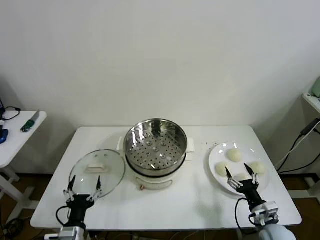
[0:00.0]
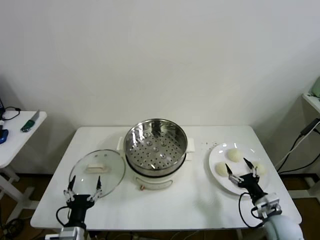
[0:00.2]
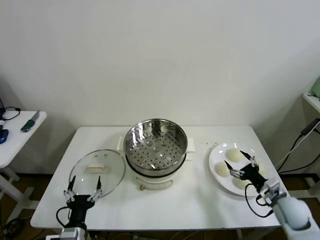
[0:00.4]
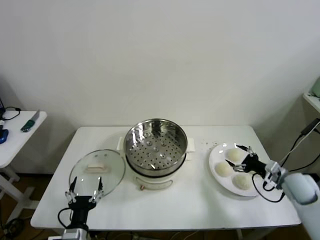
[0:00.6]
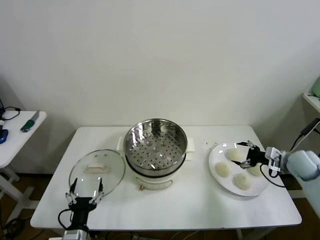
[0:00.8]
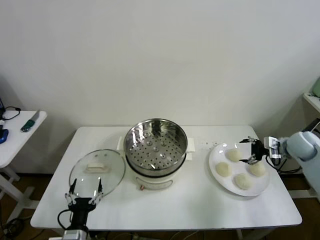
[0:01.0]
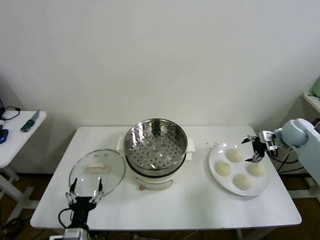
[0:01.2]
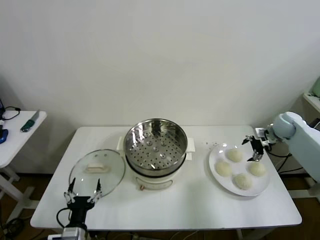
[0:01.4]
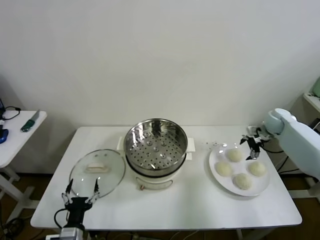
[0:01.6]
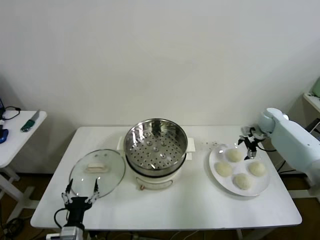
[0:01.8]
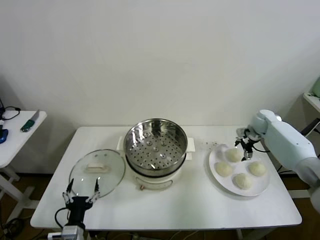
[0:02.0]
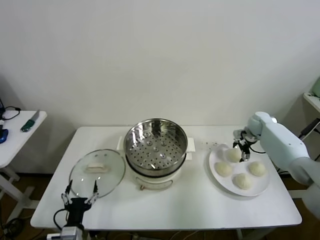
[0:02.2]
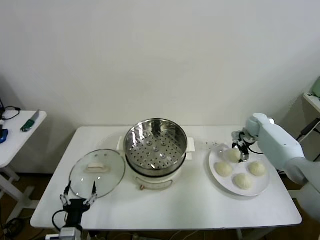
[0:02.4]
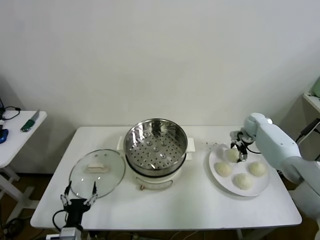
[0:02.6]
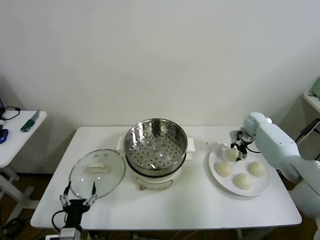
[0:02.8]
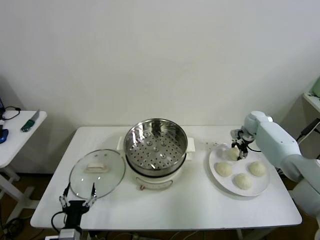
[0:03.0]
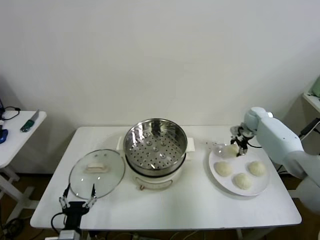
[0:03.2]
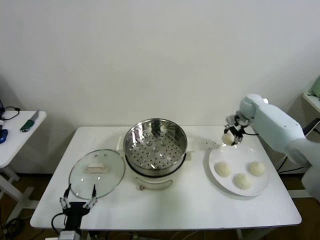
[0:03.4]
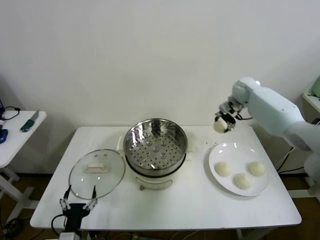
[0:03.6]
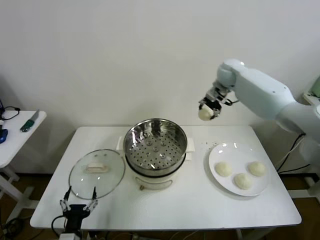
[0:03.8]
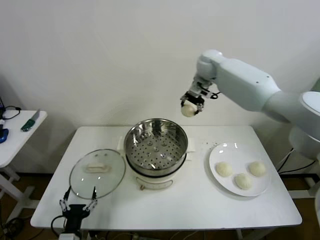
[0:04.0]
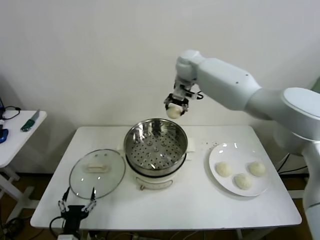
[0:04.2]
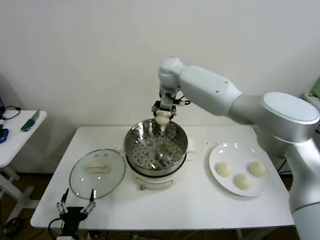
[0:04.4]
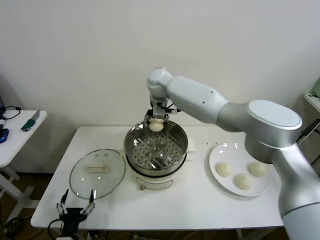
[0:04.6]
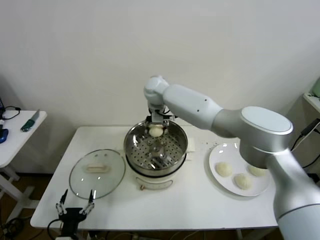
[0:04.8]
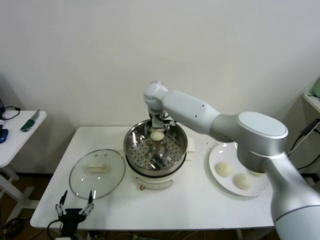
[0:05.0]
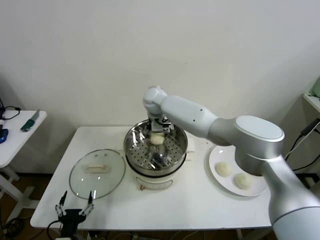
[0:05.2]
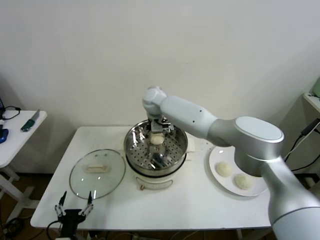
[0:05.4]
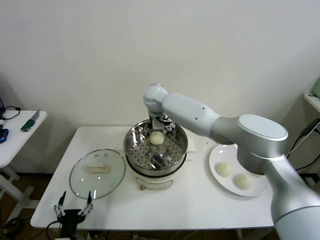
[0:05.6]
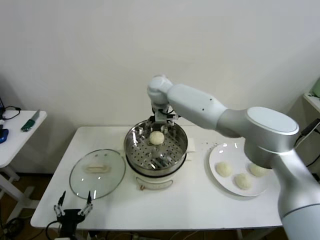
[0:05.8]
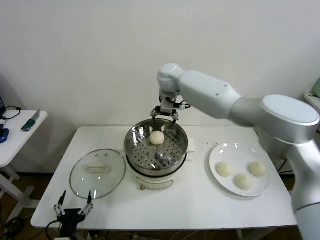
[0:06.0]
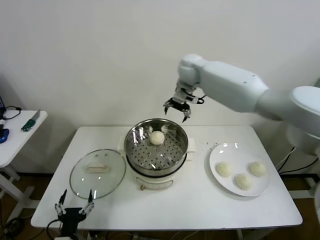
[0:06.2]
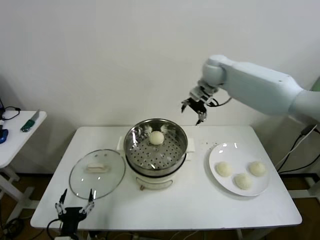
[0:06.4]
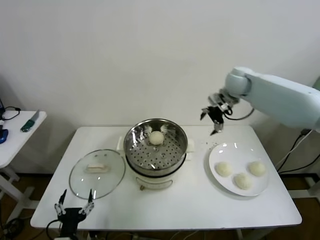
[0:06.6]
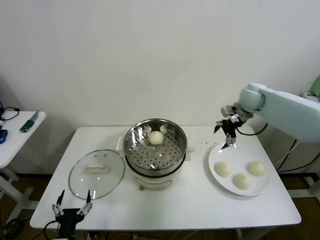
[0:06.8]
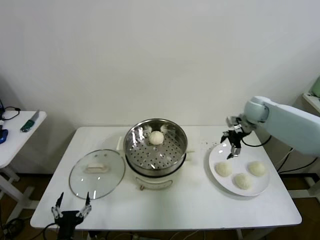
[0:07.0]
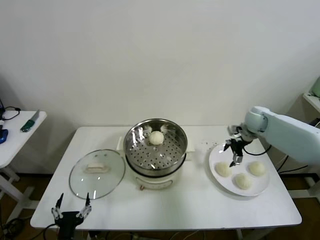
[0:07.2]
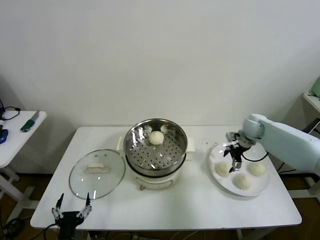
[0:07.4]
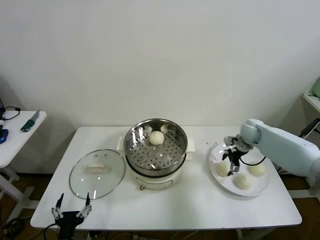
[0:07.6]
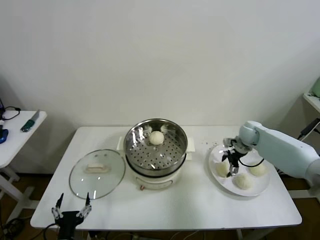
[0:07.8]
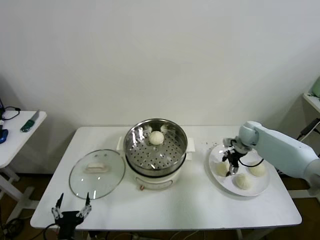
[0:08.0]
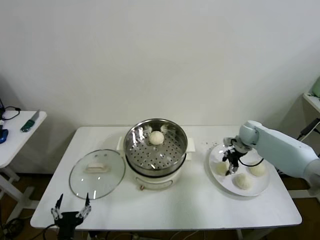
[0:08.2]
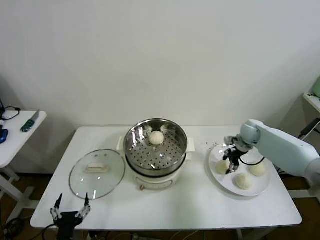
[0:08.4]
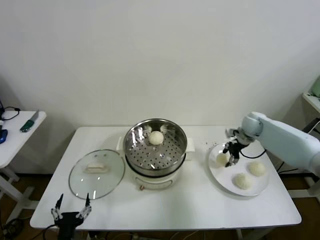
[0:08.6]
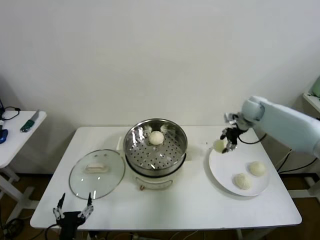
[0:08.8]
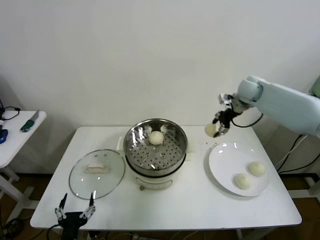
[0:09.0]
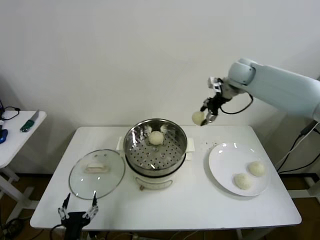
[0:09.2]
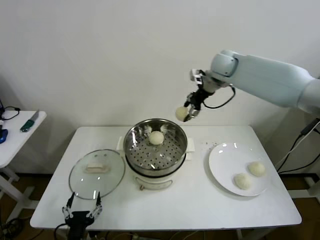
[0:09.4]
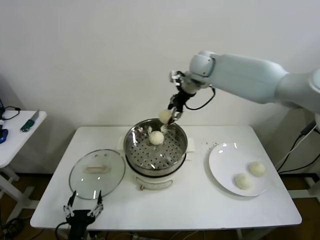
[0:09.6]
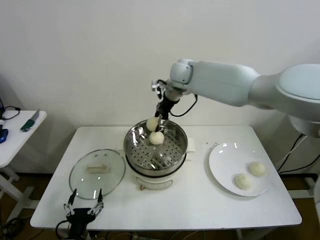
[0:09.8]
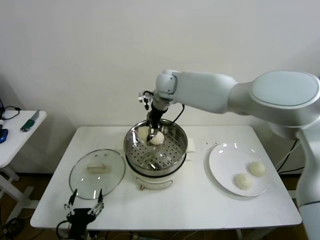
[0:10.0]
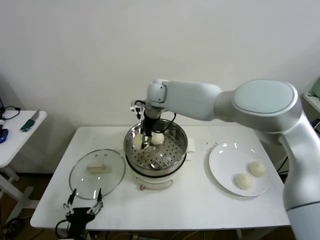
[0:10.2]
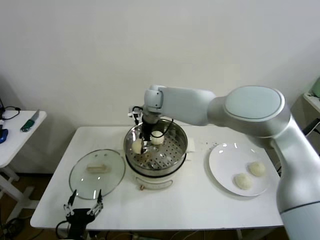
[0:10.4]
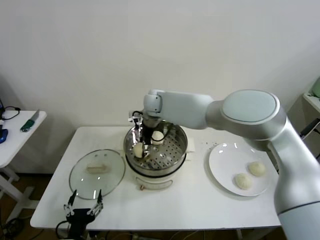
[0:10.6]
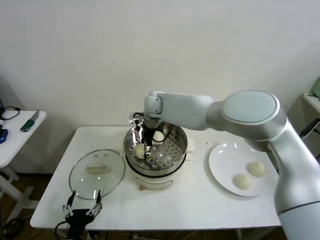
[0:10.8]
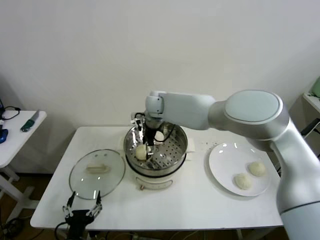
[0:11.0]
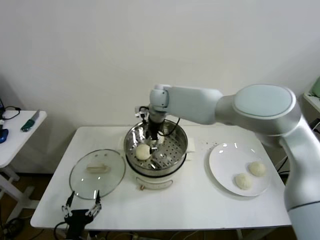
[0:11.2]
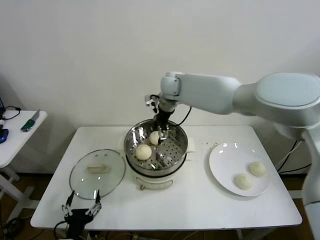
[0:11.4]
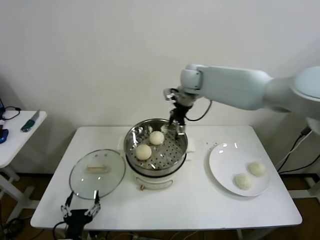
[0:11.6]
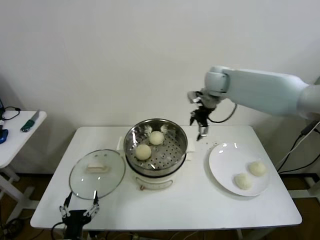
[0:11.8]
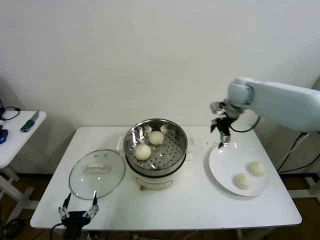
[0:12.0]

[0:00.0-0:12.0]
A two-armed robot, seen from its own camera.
Step, 0.0 to 2.6 s: Grasp the baozi in the plate with right gripper.
Step, 2.8 to 5.2 s: Place the baozi on the steamer with right gripper.
Step, 5.4 to 8.0 s: Grasp the baozi in the plate with right gripper.
Step, 8.2 to 10.8 s: Place the baozi on the steamer with right gripper.
1.6 to 3.0 s: The right gripper moves downward, some 5 cm, and closes its fingers.
3.0 to 4.4 s: The right gripper goes about 40 cm to the left and upward.
4.4 to 6.0 s: The right gripper travels downward and back again, roughly 10 cm each way, and opens.
6.0 to 7.6 s: The right gripper goes some 40 cm to the right and downward.
7.6 to 9.0 s: The right gripper travels upward by some 15 cm, and closes its fingers.
9.0 to 10.4 s: The right gripper is displaced to the left by some 35 cm.
10.4 to 12.0 s: The right gripper shifts roughly 30 cm to the right, and opens.

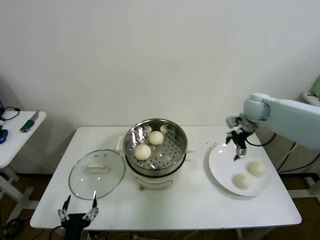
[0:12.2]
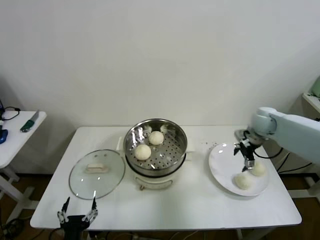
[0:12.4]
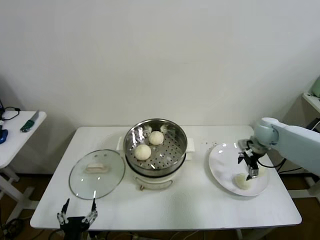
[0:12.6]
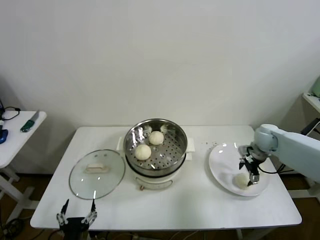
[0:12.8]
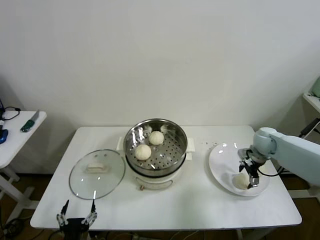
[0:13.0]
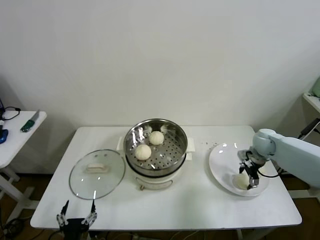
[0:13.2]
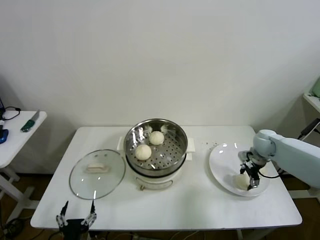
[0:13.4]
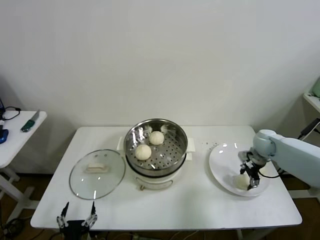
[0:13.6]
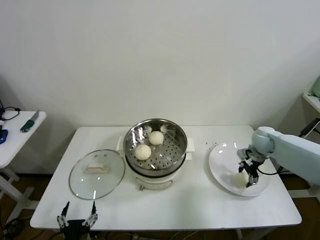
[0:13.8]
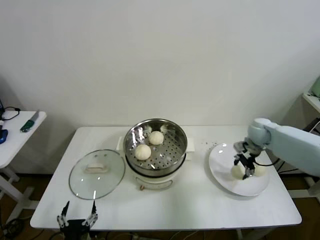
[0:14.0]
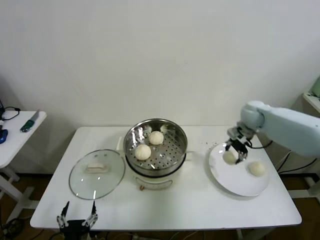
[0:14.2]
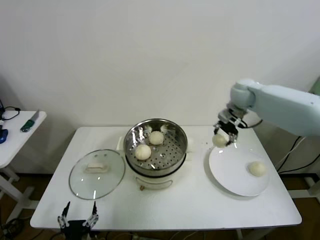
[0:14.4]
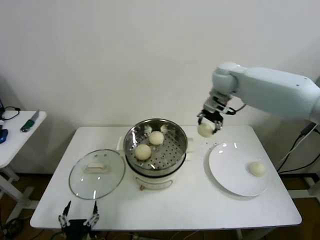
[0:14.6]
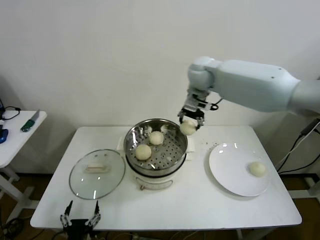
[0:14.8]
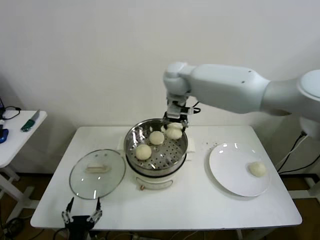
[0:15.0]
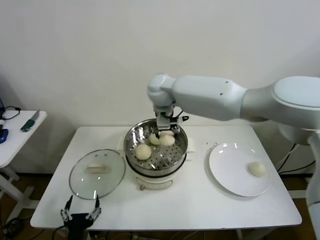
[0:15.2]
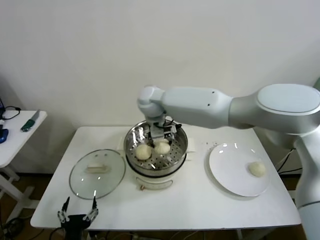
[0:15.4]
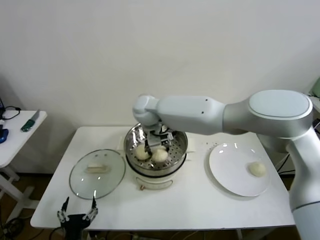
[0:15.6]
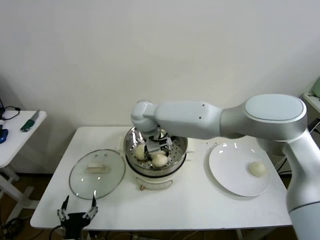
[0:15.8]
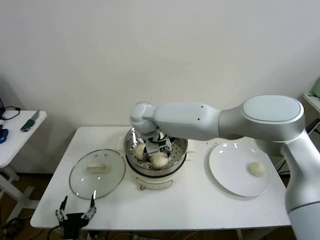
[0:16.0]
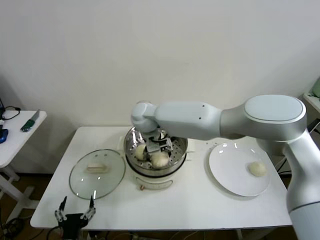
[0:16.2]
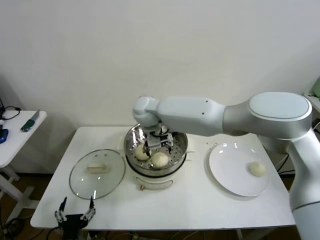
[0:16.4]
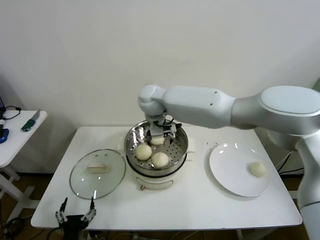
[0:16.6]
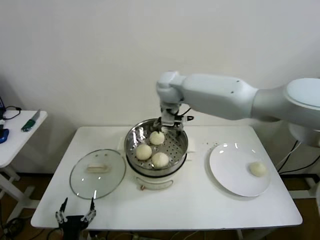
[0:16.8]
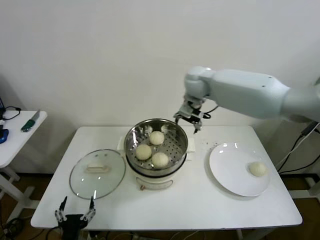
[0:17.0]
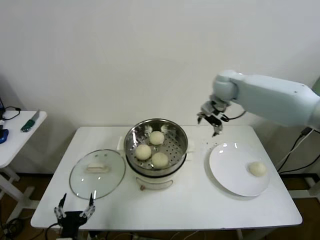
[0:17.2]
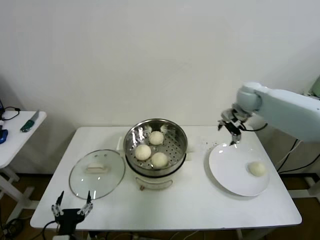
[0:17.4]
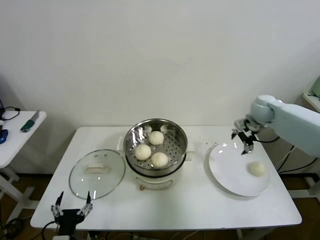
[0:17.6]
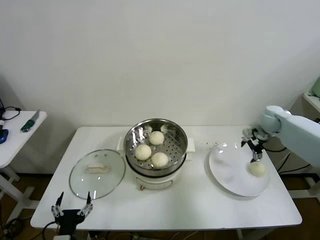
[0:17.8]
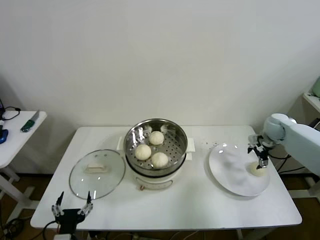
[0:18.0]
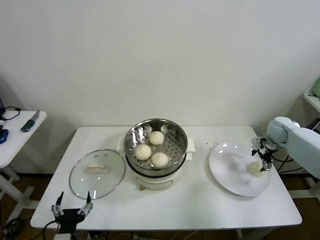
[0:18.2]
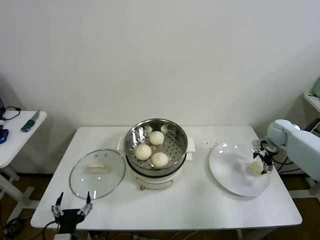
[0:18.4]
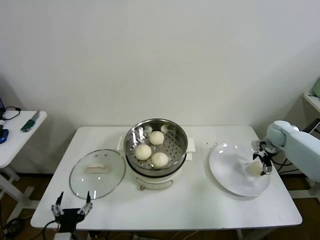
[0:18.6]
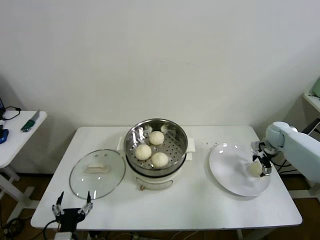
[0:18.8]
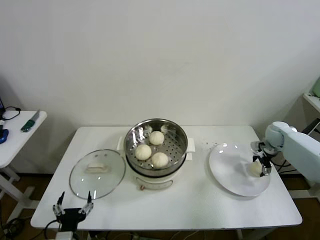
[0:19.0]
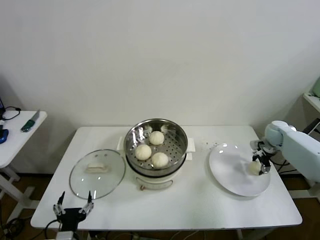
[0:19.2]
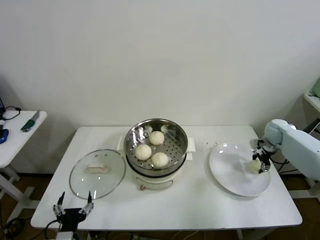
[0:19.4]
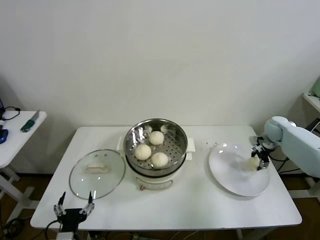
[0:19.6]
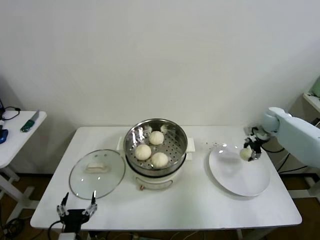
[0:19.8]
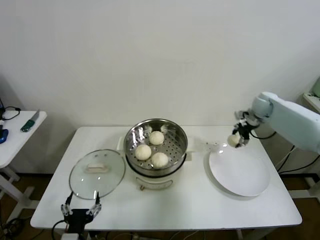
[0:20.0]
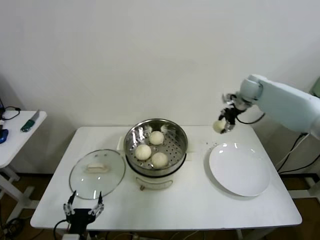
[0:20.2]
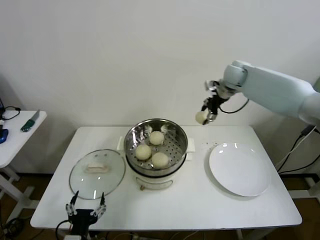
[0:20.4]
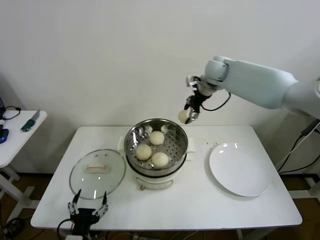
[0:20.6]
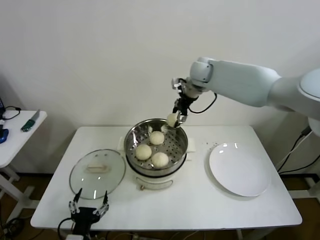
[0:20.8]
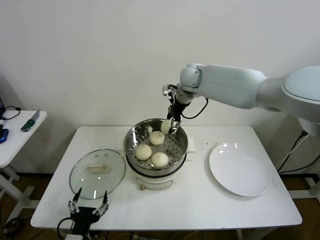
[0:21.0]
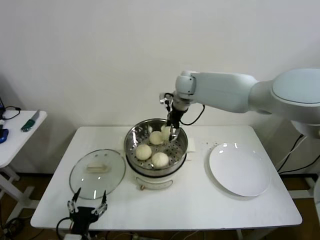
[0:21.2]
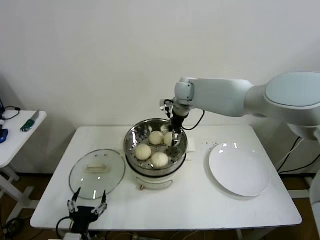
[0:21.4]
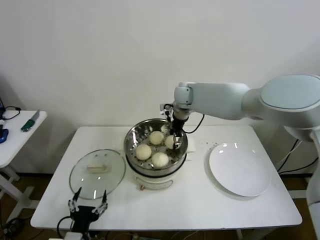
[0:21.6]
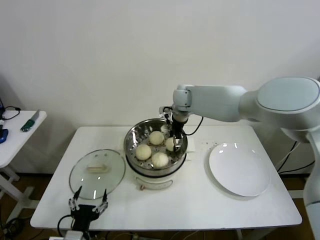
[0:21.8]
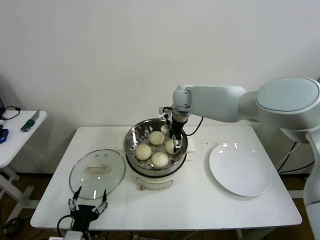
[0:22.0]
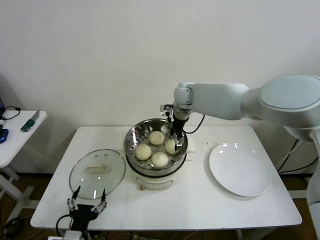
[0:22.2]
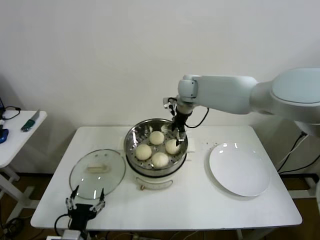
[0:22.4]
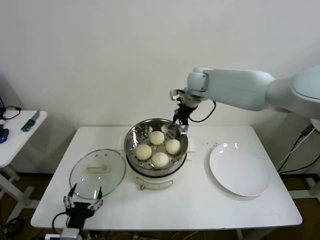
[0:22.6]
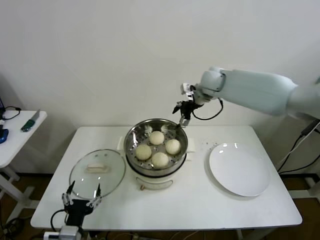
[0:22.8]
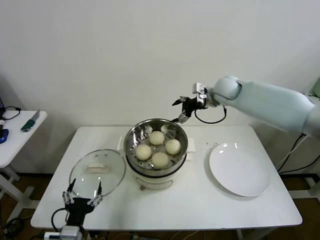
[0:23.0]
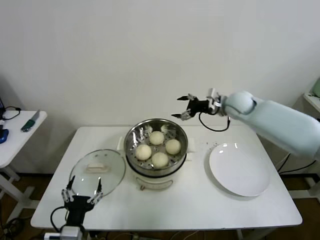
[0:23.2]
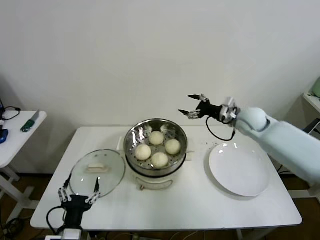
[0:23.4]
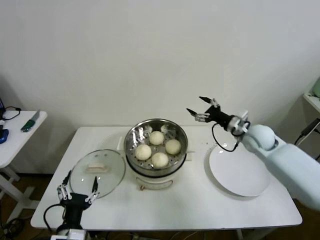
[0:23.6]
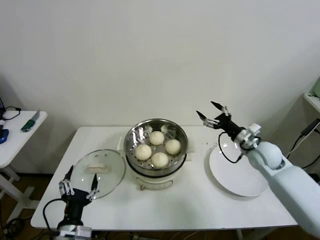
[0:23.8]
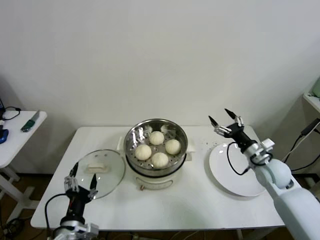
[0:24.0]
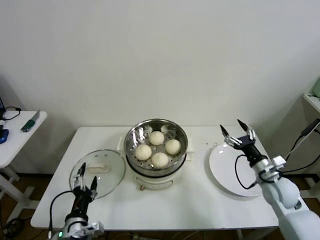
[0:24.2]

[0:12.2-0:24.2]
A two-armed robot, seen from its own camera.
Step, 13.6 to 16.0 s: Place the baozi on the steamer with right gripper.
Step, 16.2 to 19.0 s: Grasp the baozi in the plate with right gripper.
Step, 19.2 to 21.8 s: Place the baozi on the steamer with right gripper.
12.2 to 13.8 s: The right gripper heads downward and to the right, covering approximately 15 cm, and closes up.
13.8 to 15.2 s: The right gripper goes approximately 40 cm to the left and upward.
15.2 to 16.6 s: The right gripper opens up.
16.6 to 18.2 s: The right gripper heads to the right, covering some 50 cm.
18.2 to 19.8 s: The right gripper closes up.
19.8 to 21.2 s: The right gripper moves to the left and upward, about 40 cm.
21.2 to 22.6 s: The right gripper opens up.
22.6 to 24.2 s: The right gripper travels backward, to the right and downward by some 40 cm.
